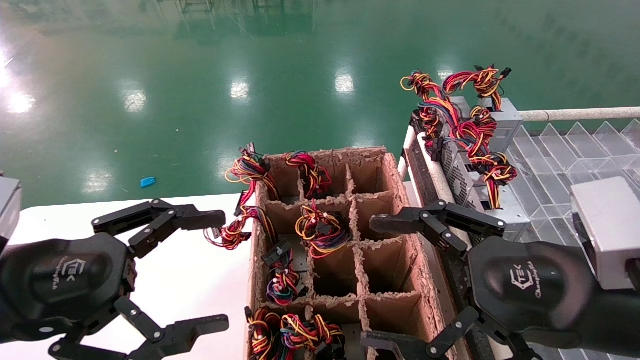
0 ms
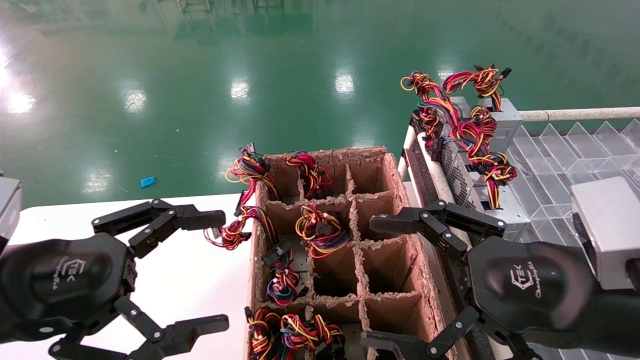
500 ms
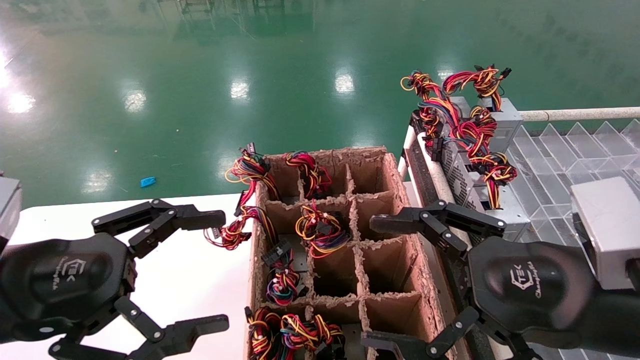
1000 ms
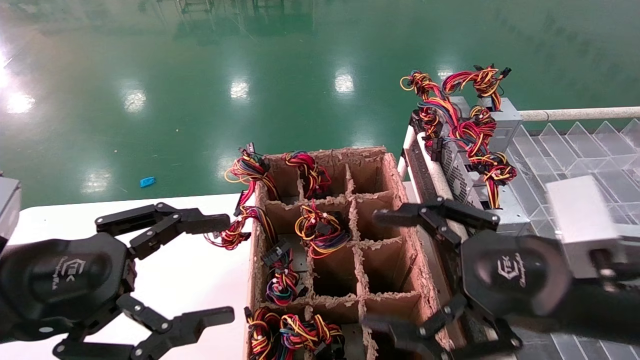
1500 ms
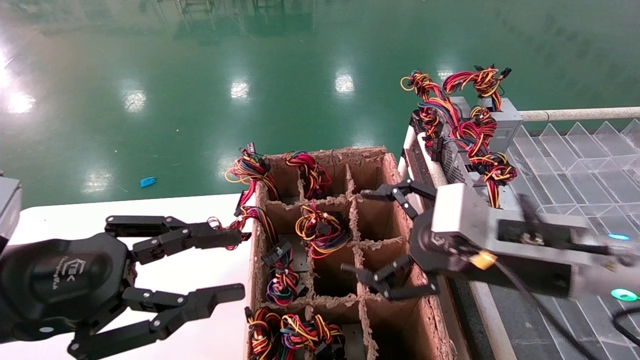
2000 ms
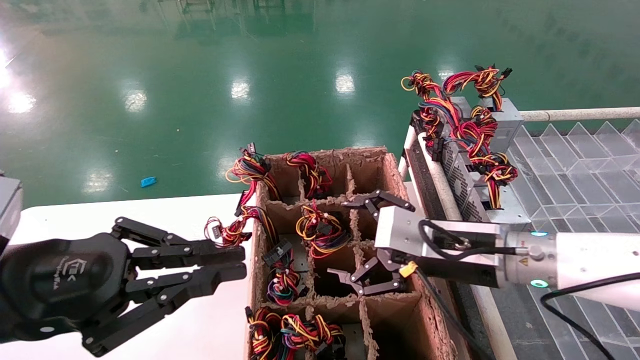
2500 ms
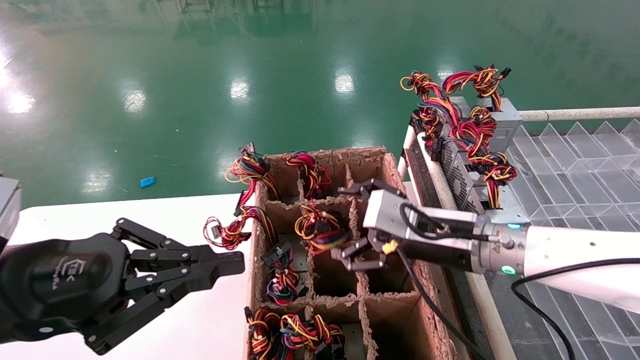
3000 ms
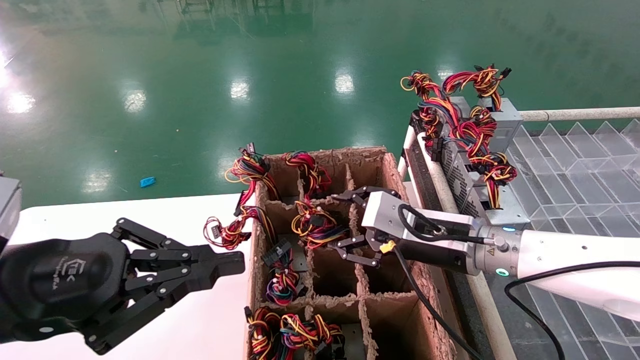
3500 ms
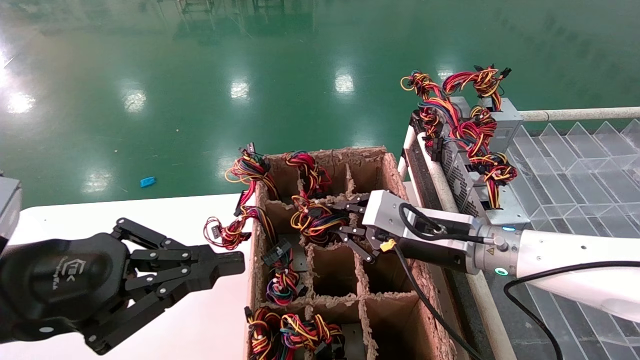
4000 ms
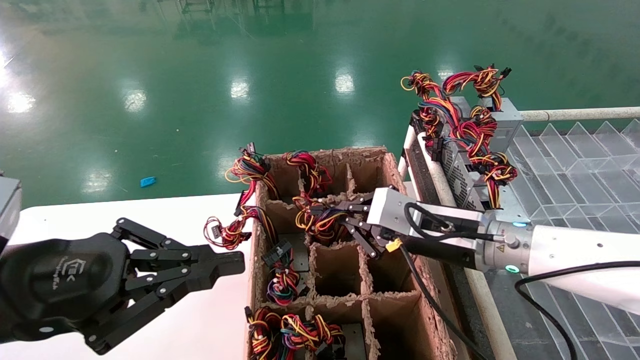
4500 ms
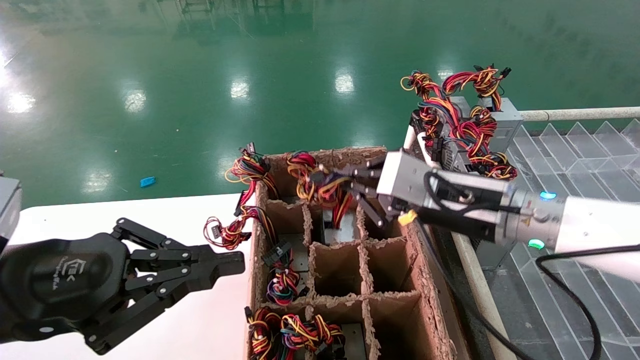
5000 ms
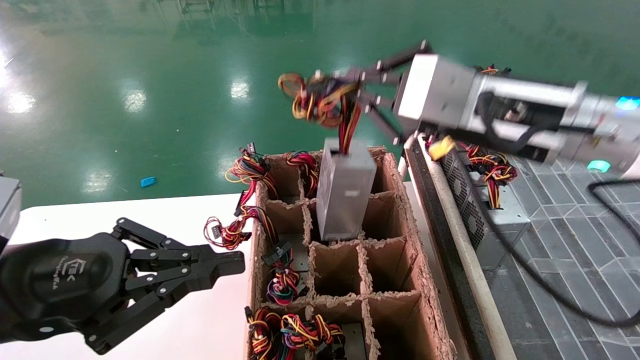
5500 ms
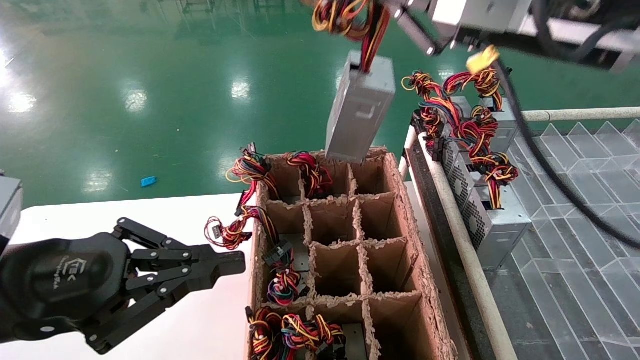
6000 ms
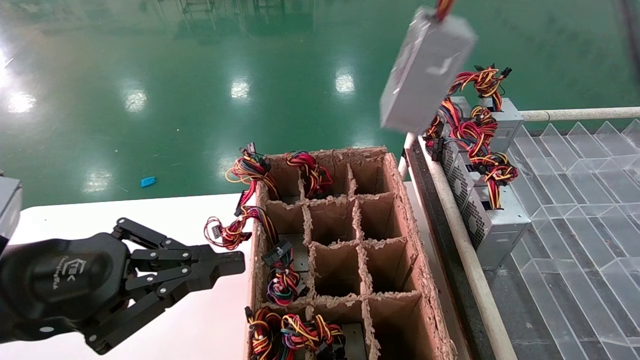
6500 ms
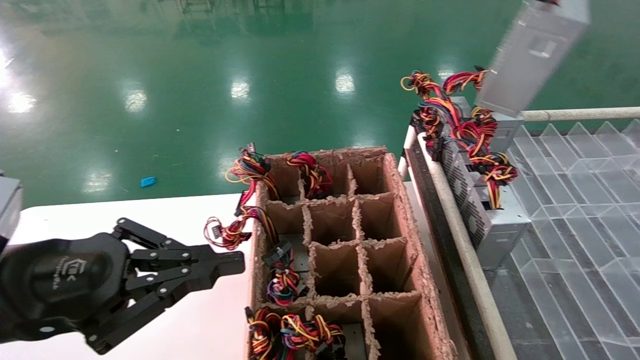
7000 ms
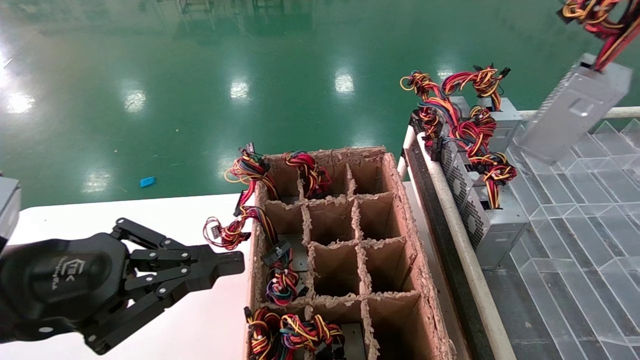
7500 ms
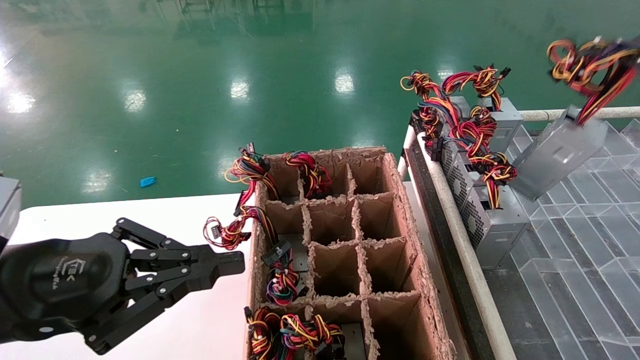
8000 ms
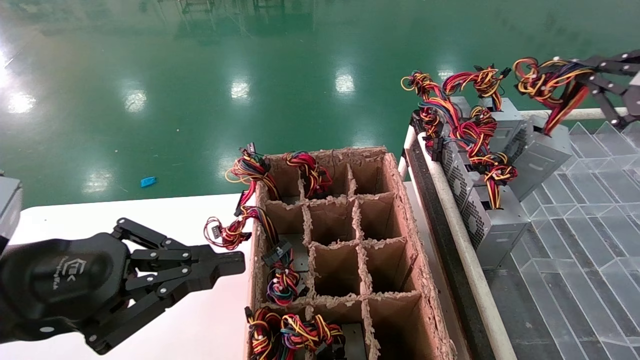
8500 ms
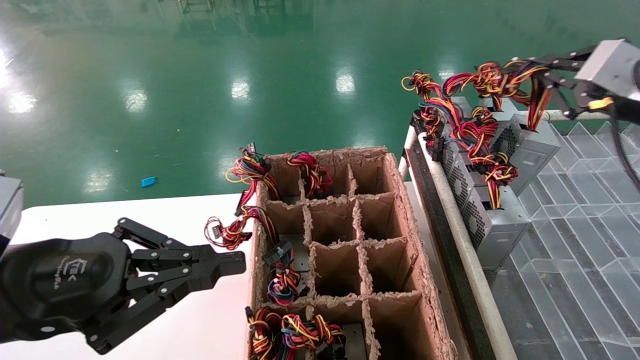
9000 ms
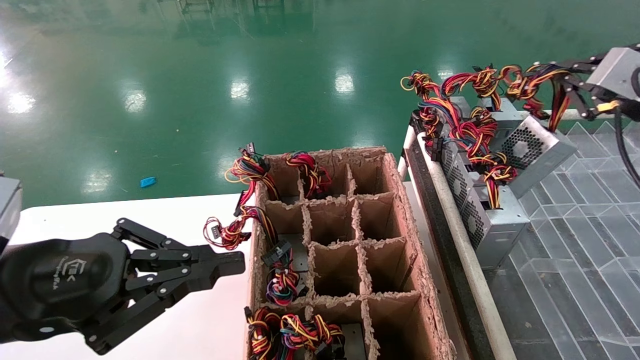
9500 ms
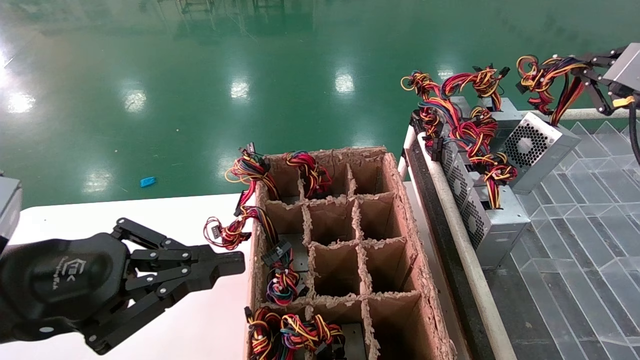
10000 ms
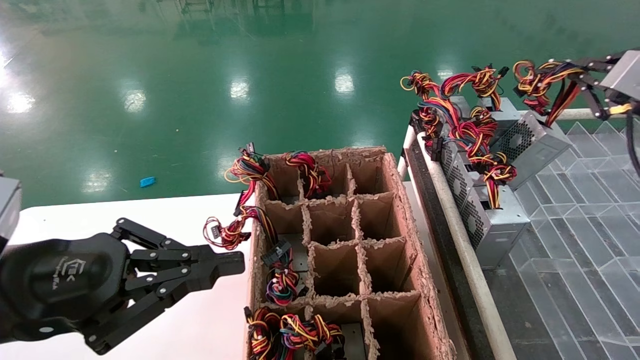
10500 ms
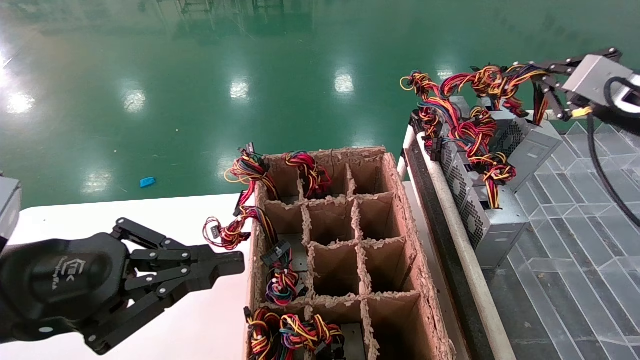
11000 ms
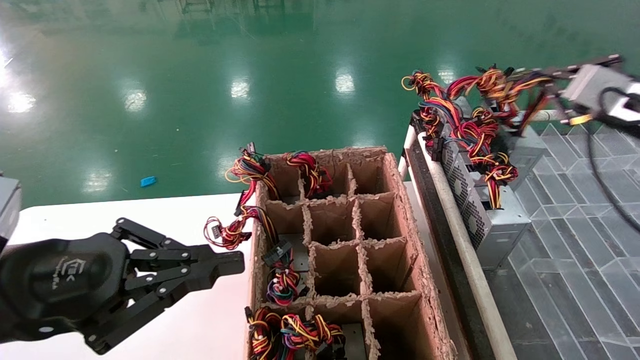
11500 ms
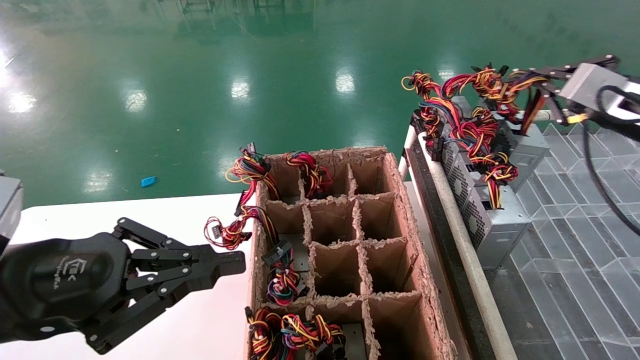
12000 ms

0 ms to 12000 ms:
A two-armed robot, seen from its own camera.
Step, 2000 ms to 4000 ms: Grab the main unit power supply from the containment box.
0 ms to 2000 ms: The left gripper closes its fingers, while the right gripper goes approximately 10 cm forward.
2000 ms to 4000 ms: The left gripper closes up. The right gripper moves forward, some 10 cm, and closes.
4000 ms to 6000 ms: The right gripper is displaced upward and backward by roughly 25 cm.
6000 ms to 8000 ms: The right gripper shifts some 25 cm to the right.
8000 ms to 10000 ms: The right gripper goes some 10 cm forward.
10000 ms to 12000 ms: The right gripper shifts by approximately 5 cm.

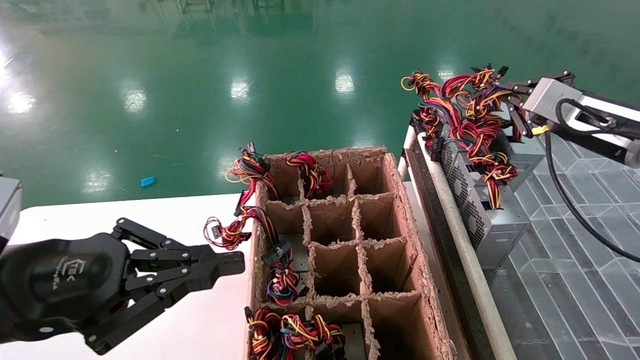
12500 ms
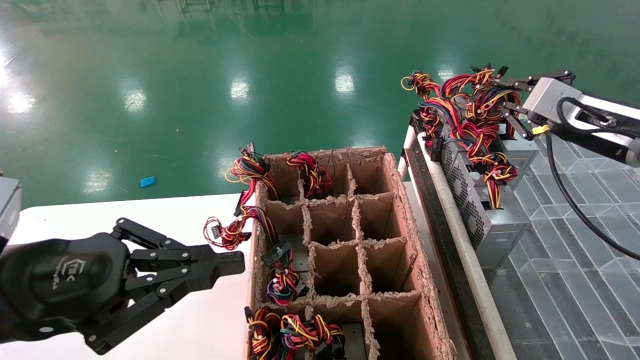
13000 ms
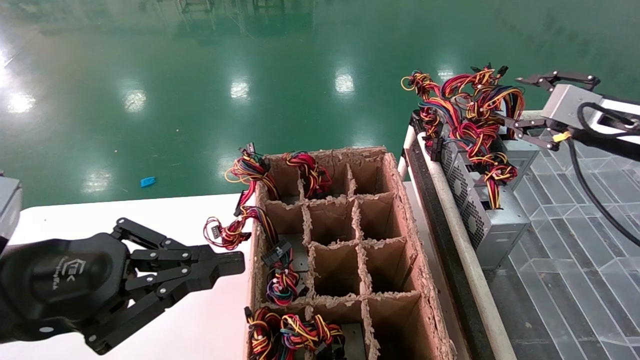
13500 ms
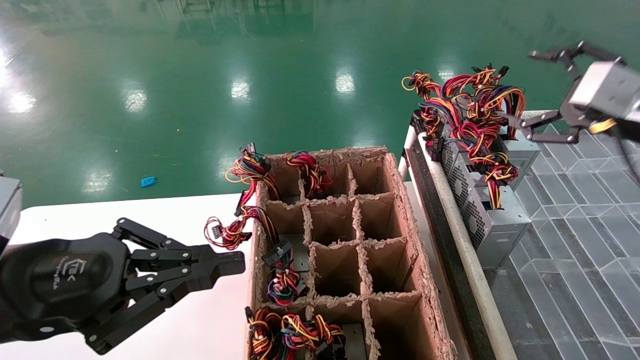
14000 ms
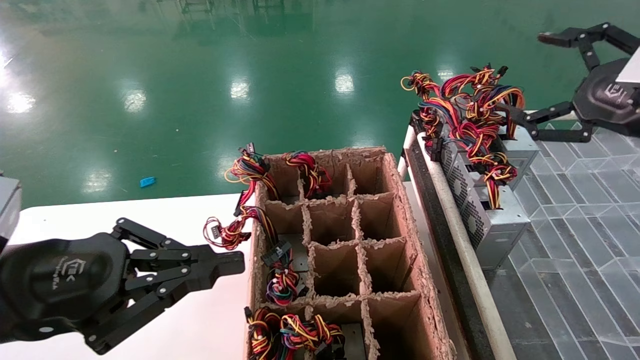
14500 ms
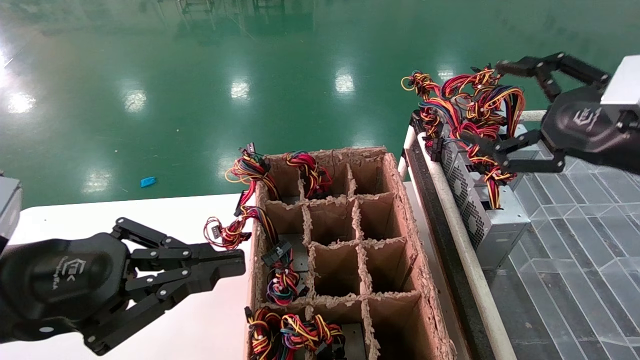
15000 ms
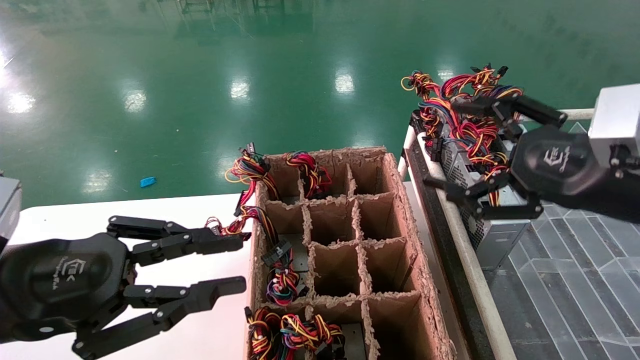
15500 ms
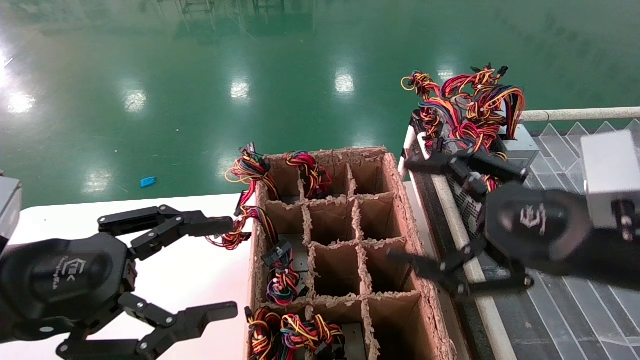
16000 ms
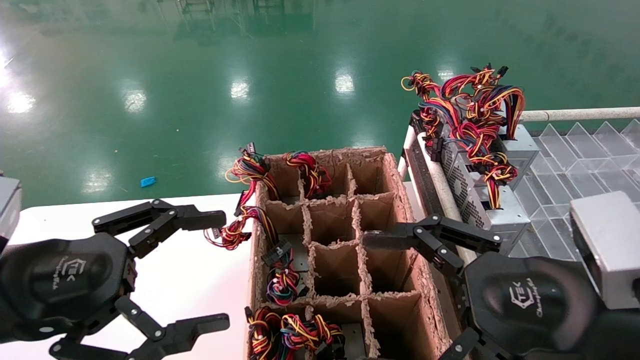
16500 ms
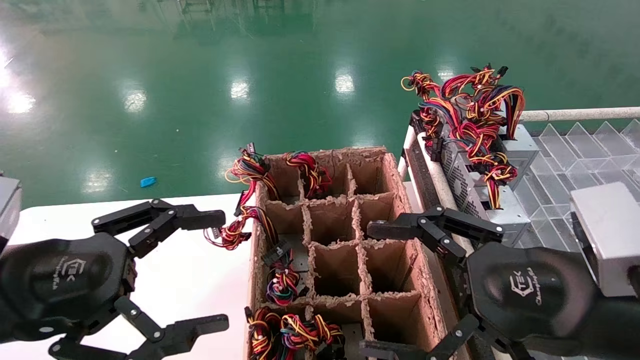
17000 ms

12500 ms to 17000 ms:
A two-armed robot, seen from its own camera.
12500 ms to 14500 ms: The right gripper goes about 10 cm backward, and opens.
14500 ms to 17000 ms: The right gripper heads to the left, backward and downward, covering roughly 20 cm; the left gripper opens.
